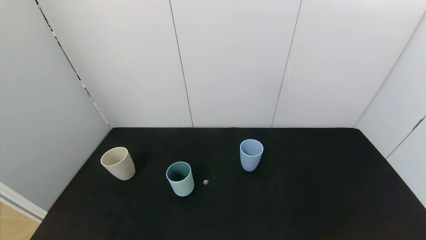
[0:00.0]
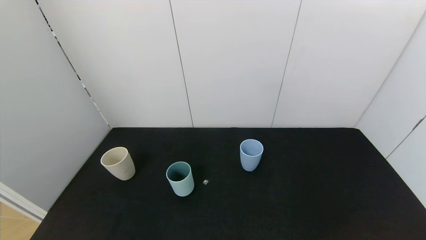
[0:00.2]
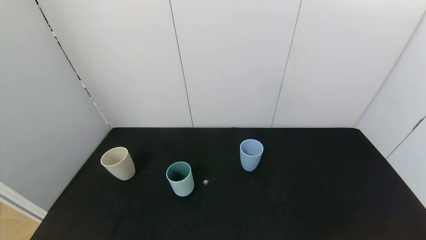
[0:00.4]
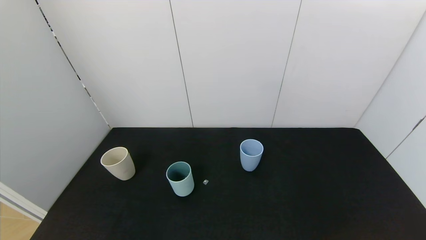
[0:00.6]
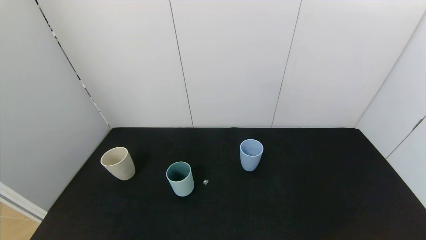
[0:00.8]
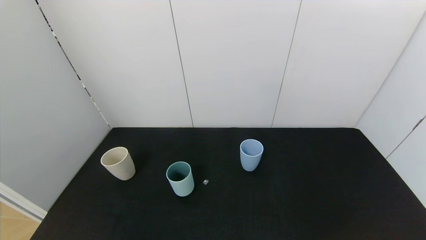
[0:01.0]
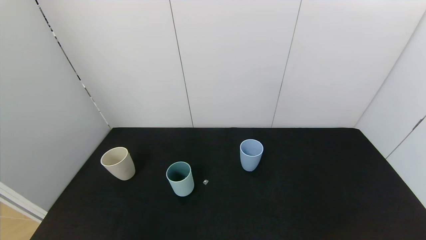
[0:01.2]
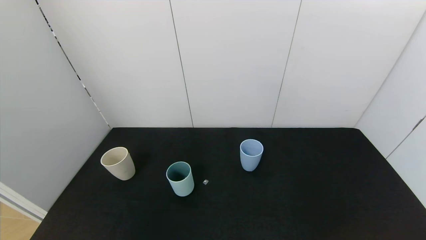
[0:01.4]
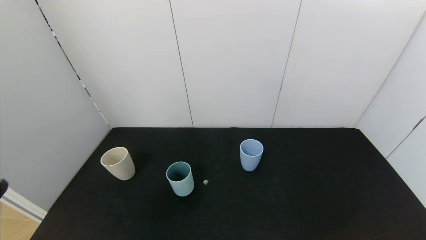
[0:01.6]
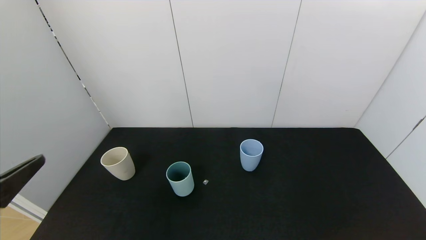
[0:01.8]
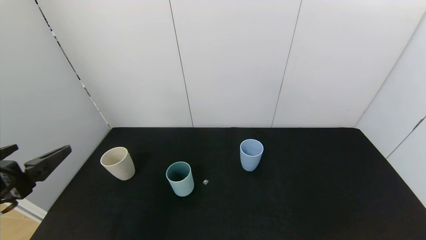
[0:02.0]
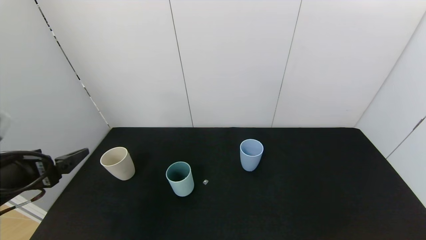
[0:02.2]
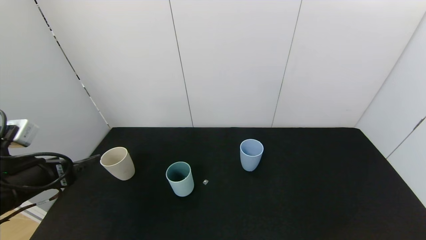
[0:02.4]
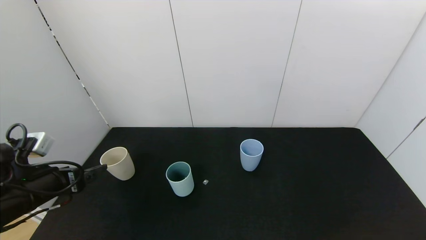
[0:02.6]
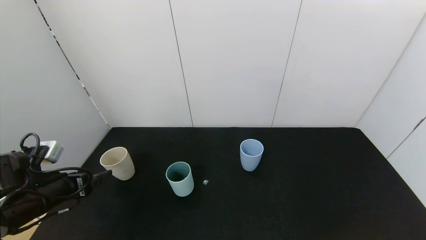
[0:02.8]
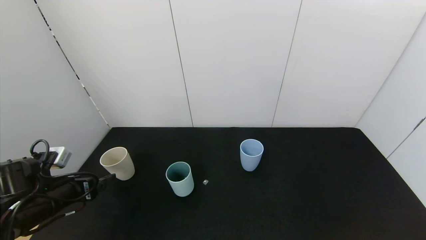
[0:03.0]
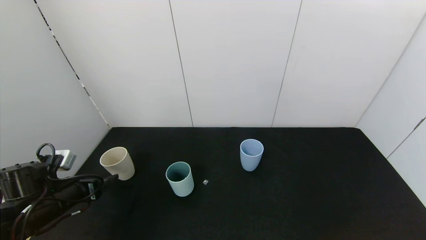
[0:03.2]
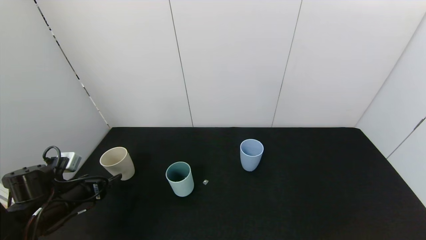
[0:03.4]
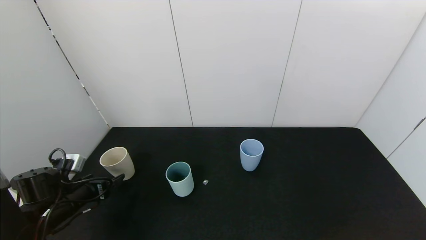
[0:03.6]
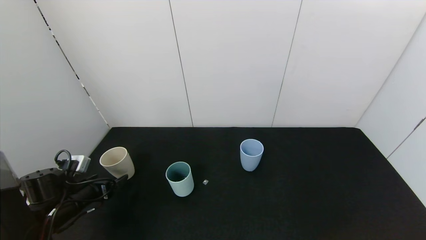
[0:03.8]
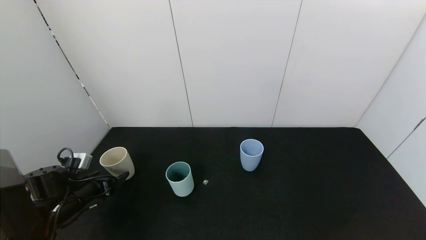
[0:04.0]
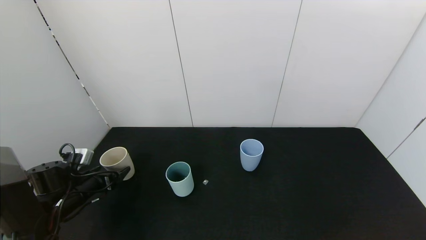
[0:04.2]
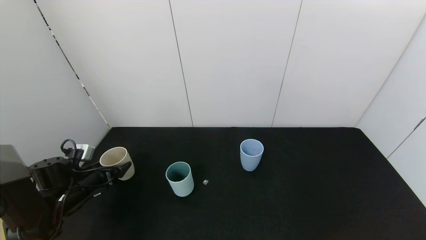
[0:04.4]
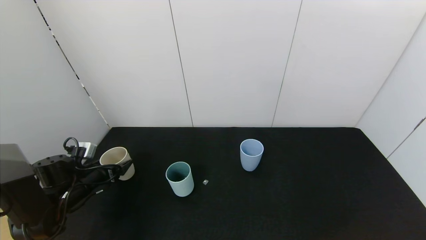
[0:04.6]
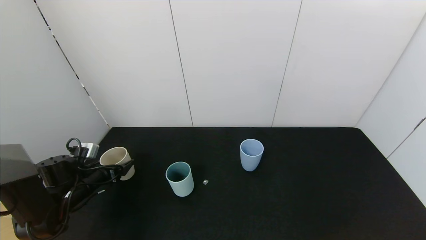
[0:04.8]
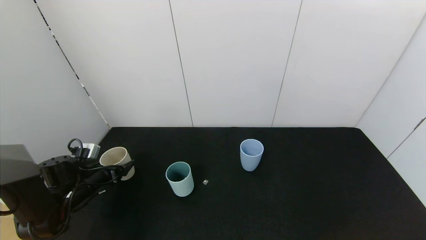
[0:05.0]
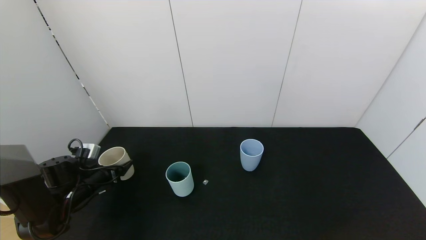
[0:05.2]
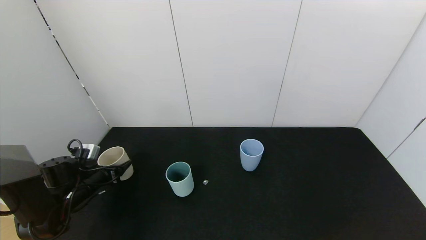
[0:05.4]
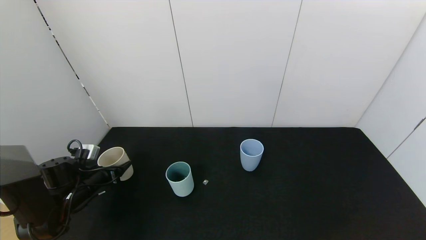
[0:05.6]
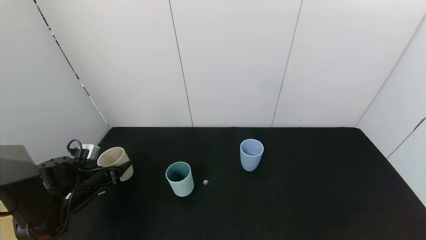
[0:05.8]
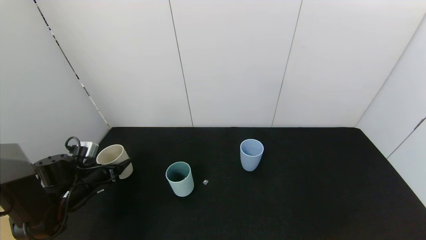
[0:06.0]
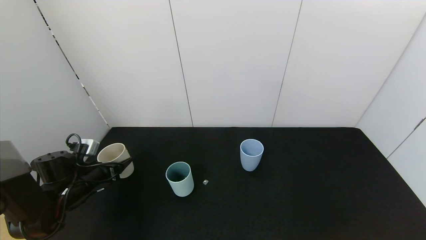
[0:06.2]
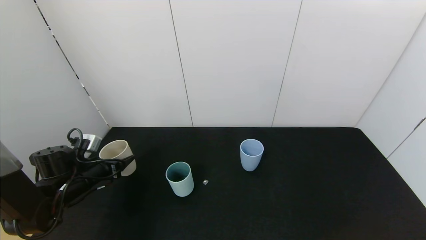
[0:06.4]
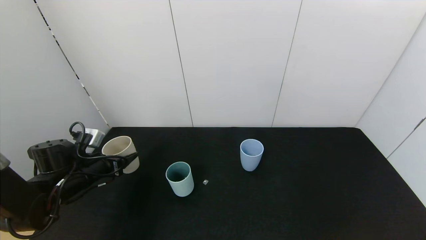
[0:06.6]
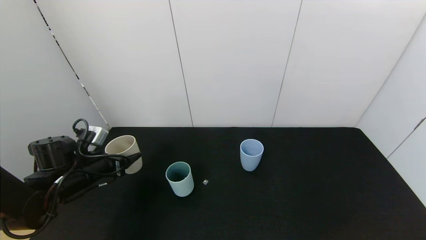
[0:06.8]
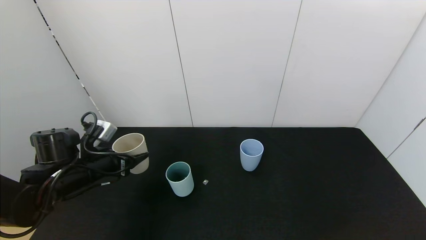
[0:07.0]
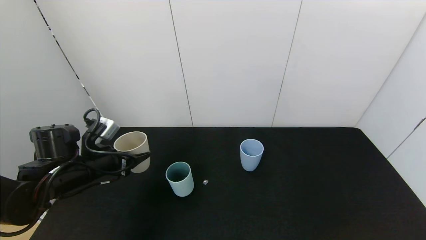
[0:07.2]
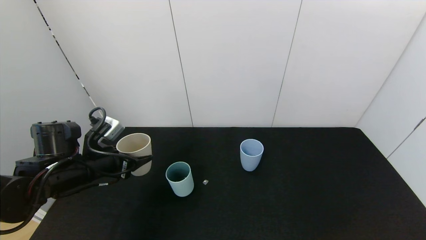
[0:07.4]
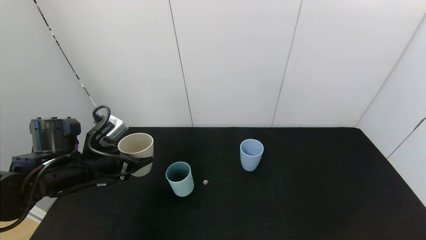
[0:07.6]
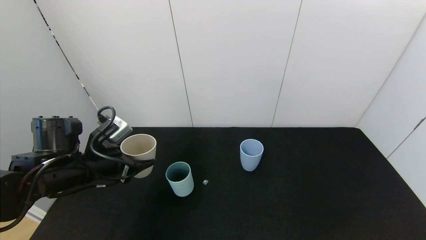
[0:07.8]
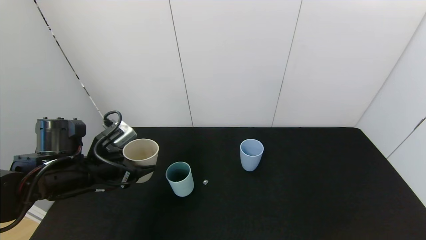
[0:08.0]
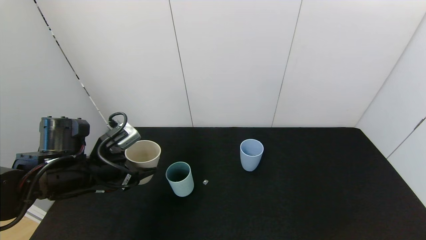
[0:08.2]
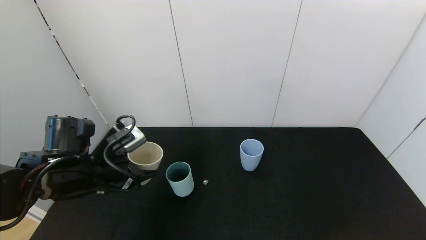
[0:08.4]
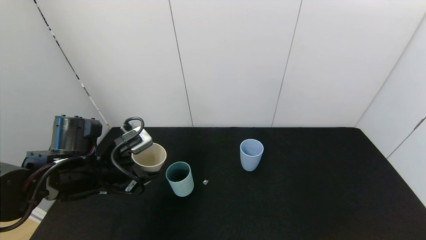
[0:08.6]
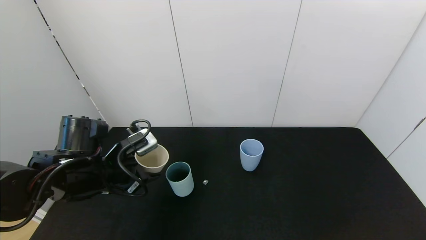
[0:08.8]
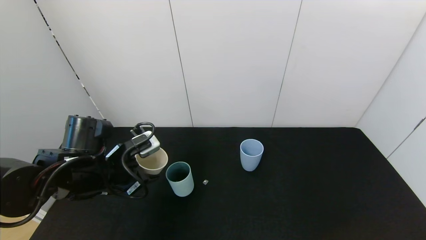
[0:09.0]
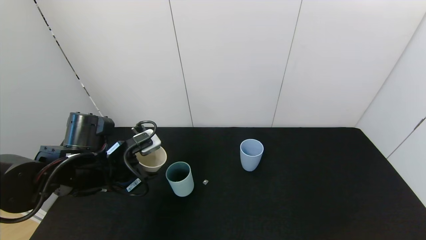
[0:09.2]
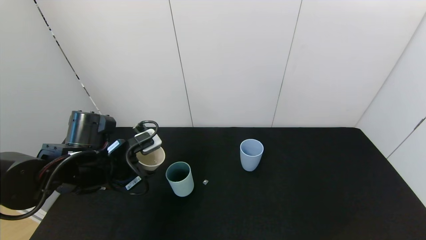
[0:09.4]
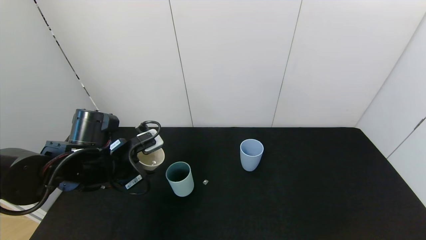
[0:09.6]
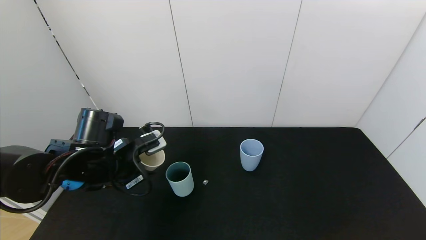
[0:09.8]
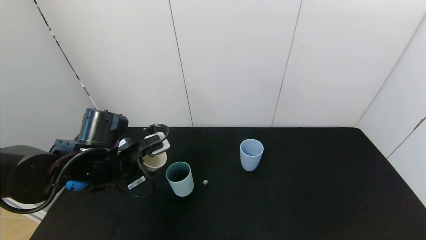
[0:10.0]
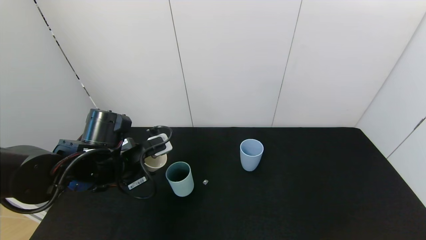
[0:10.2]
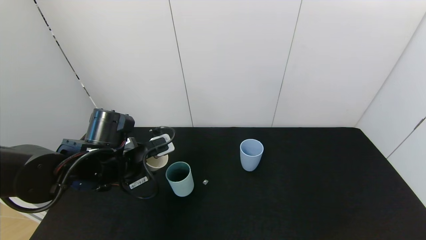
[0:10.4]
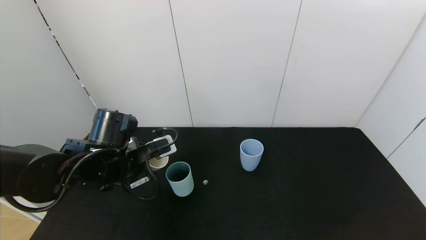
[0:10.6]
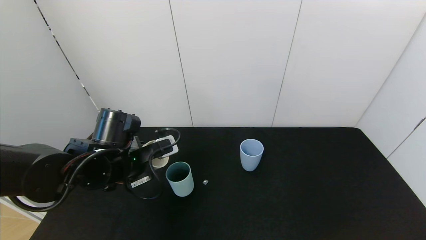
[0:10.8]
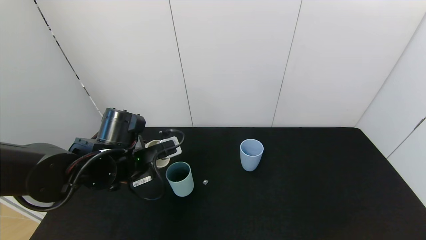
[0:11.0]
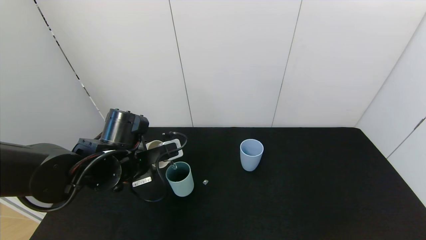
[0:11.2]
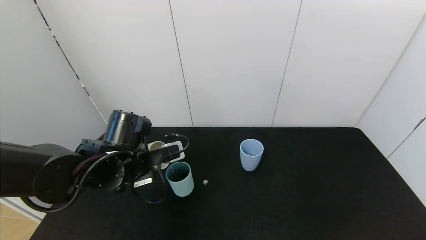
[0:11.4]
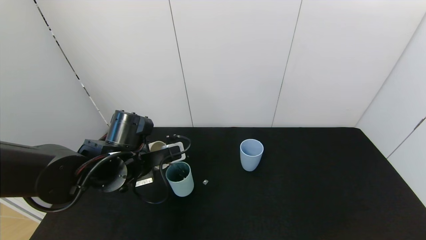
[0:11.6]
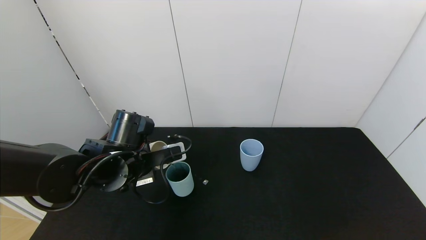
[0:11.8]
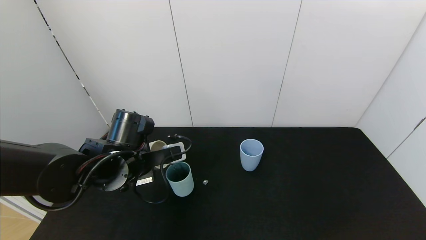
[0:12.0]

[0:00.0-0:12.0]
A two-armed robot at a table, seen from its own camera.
Task of the whole recording: use the gripper to pour the water into the other two cups on black table.
Step, 0.0 to 5.2 s: Grasp the white cup with the left gripper.
1.6 to 3.0 s: The left gripper goes roughly 25 cm forward and downward.
3.0 to 4.4 s: The left gripper goes approximately 10 cm forward and downward.
4.4 to 6.0 s: The left gripper closes up.
6.0 to 7.6 s: The left gripper goes roughly 15 cm upward and to the right.
9.0 to 10.4 s: The grippers make only small movements.
10.4 to 12.0 s: The grippers stay close to where they were, moving slightly.

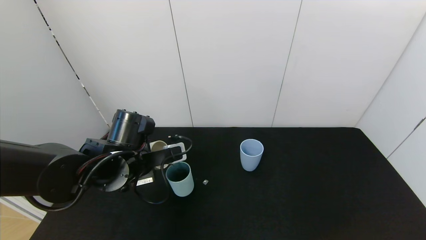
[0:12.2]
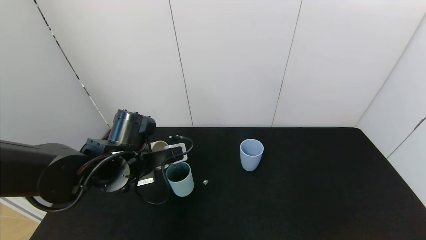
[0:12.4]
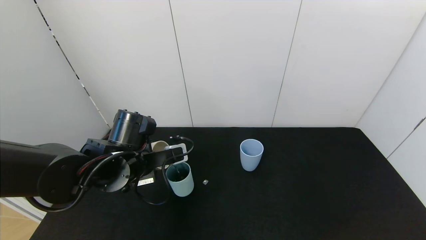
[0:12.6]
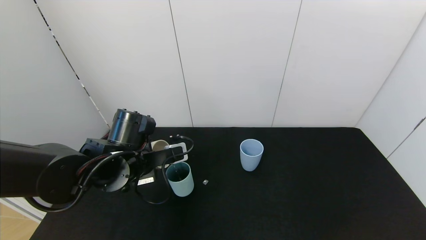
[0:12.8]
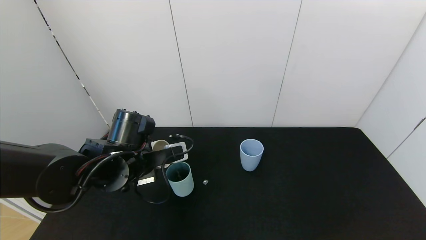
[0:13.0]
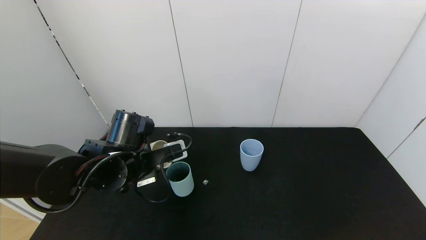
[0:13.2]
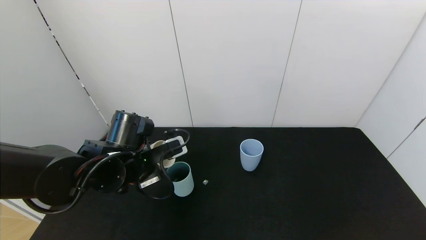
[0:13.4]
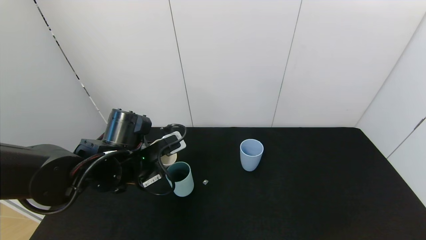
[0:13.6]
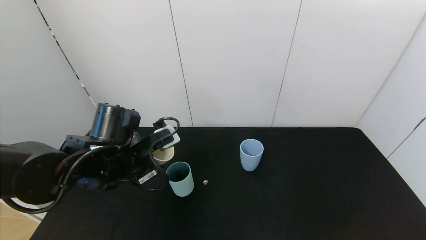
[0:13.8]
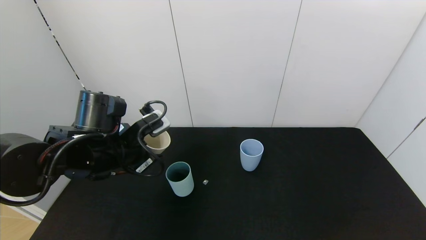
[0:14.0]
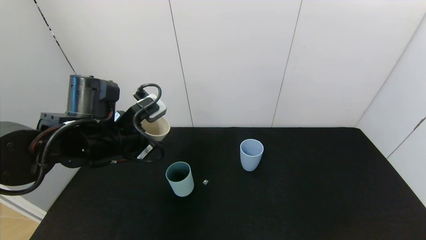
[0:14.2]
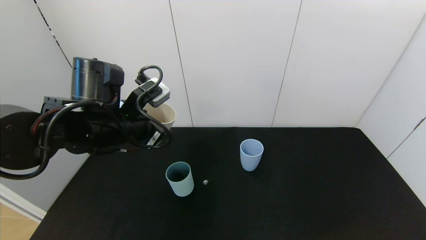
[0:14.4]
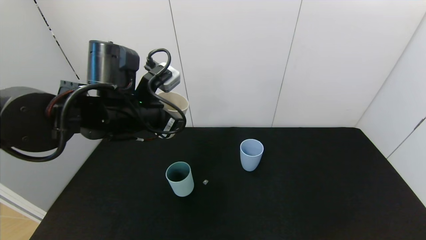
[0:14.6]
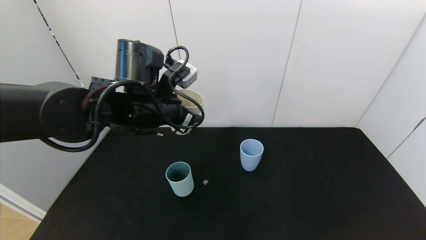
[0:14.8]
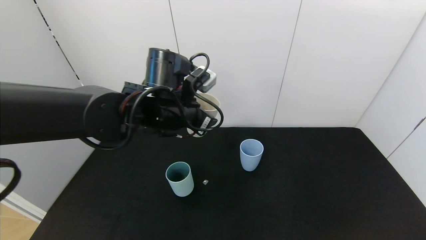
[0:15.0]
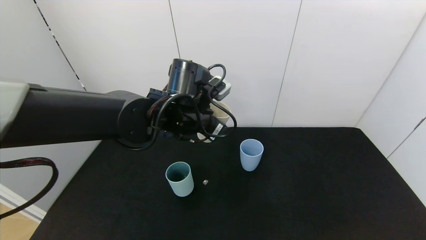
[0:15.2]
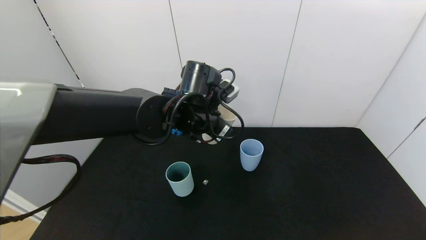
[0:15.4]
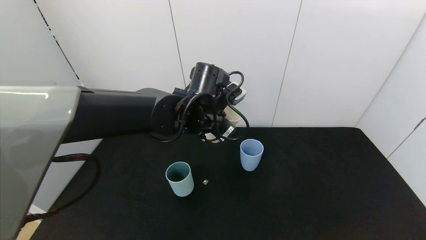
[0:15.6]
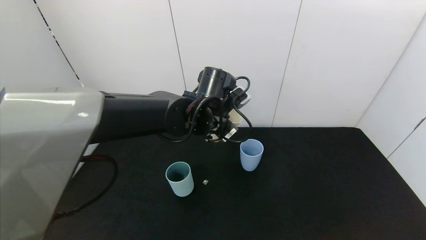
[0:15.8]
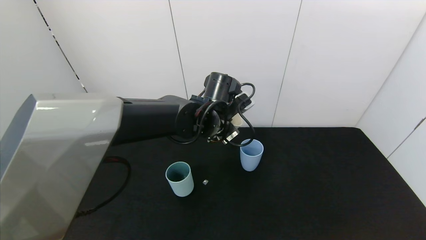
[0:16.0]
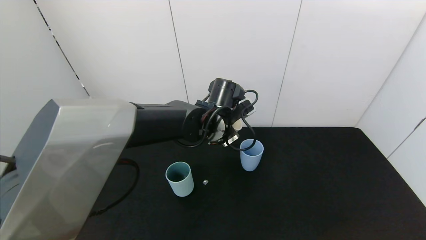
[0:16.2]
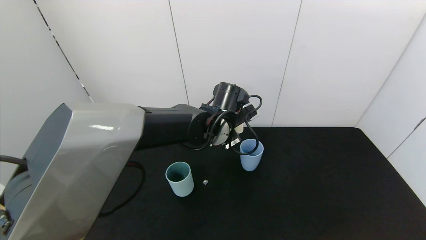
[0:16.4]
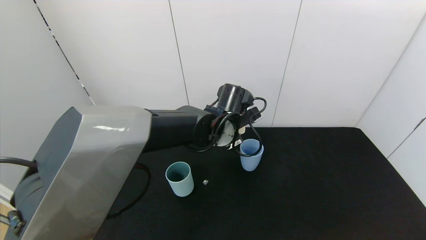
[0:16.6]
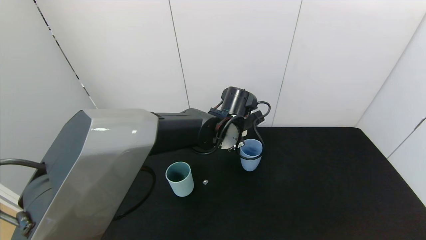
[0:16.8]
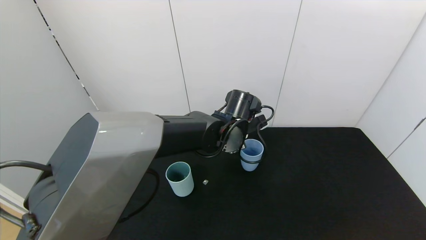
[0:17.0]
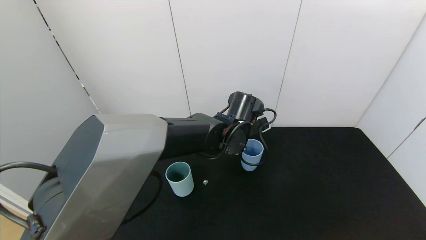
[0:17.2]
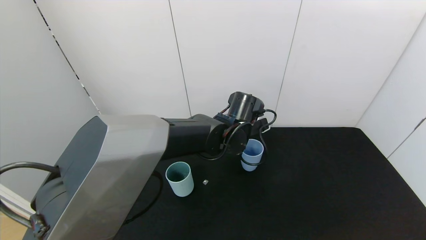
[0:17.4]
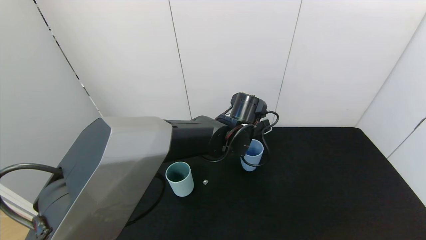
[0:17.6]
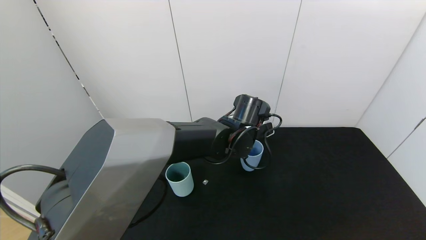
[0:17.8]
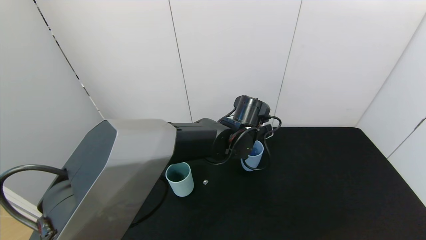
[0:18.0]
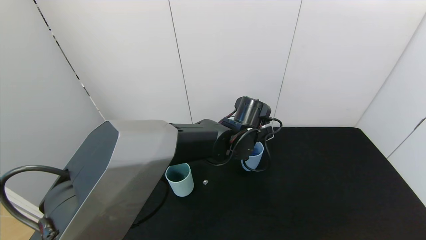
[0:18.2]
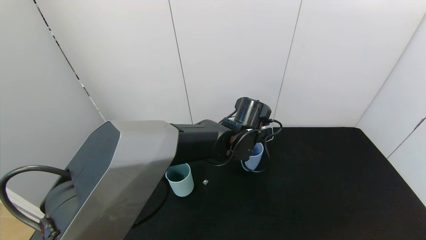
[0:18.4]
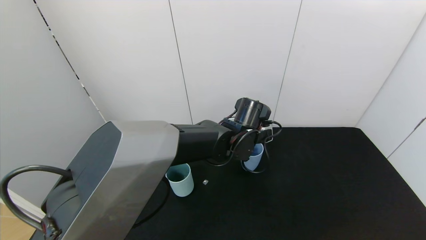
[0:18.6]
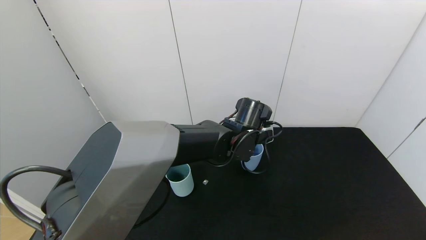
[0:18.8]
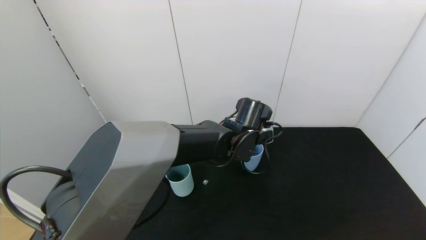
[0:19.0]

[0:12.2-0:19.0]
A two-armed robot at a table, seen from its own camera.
Task of the whole recording: use the gripper to pour the water into the other two cups on black table.
12.2 to 13.6 s: The grippers move only a little.
13.6 to 15.0 s: The left gripper goes approximately 15 cm to the right, upward and forward.
15.0 to 16.2 s: The left gripper shifts about 10 cm to the right, downward and forward.
17.6 to 19.0 s: There are only small adjustments of the grippers.
